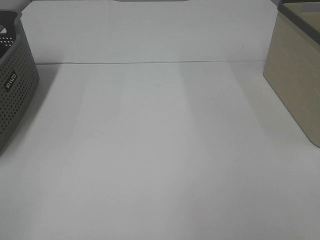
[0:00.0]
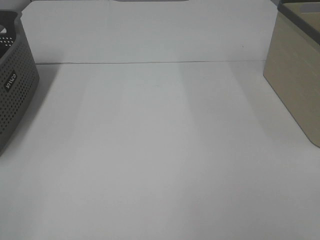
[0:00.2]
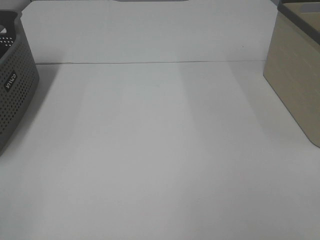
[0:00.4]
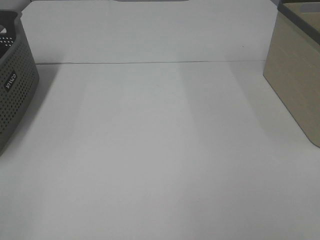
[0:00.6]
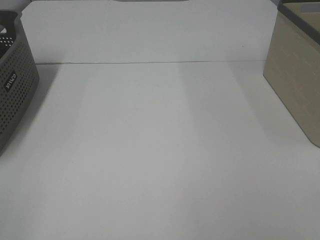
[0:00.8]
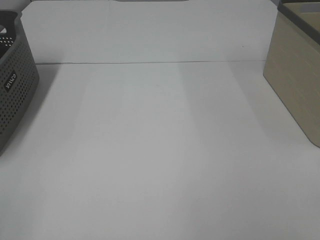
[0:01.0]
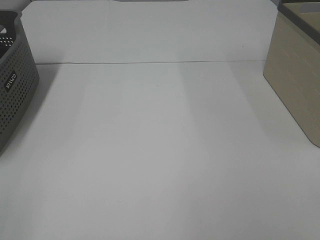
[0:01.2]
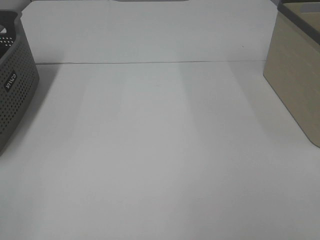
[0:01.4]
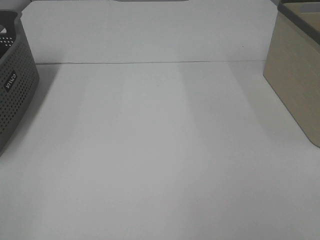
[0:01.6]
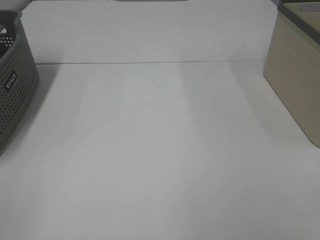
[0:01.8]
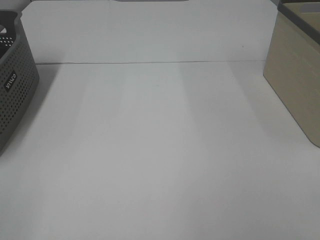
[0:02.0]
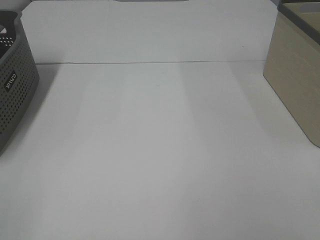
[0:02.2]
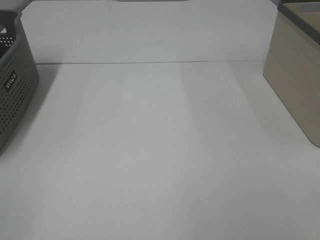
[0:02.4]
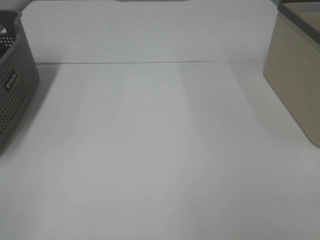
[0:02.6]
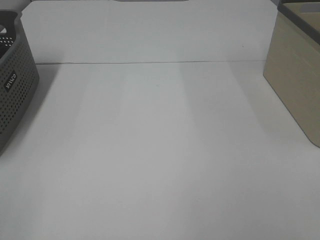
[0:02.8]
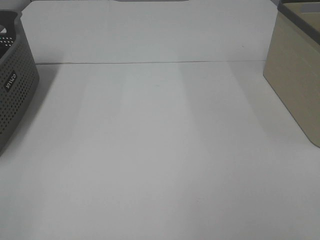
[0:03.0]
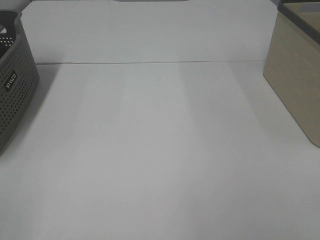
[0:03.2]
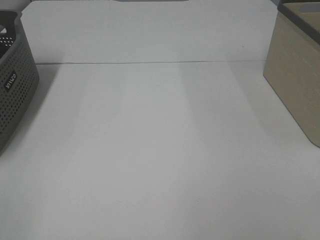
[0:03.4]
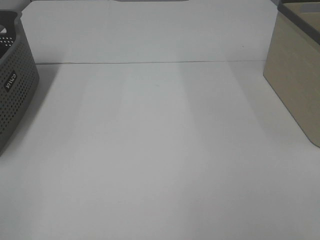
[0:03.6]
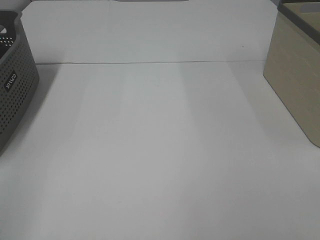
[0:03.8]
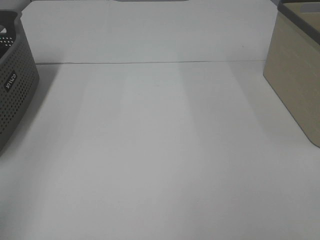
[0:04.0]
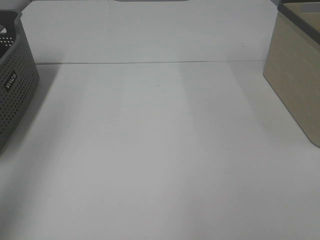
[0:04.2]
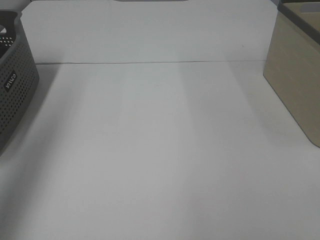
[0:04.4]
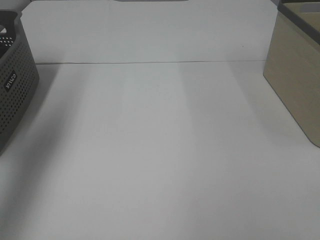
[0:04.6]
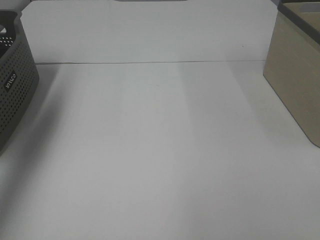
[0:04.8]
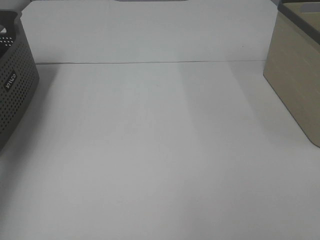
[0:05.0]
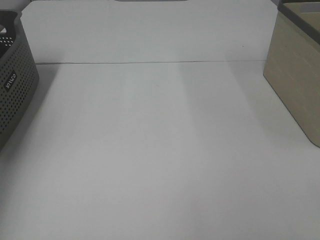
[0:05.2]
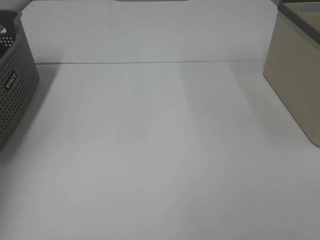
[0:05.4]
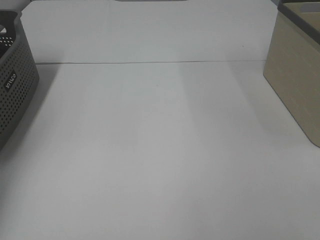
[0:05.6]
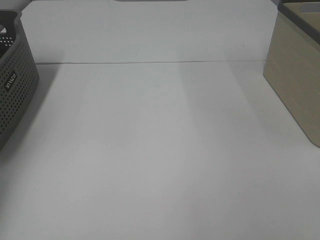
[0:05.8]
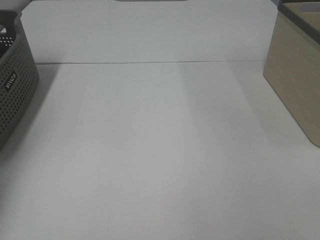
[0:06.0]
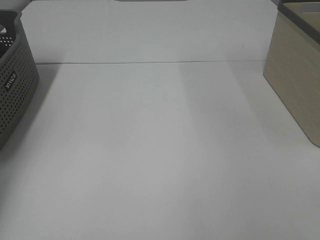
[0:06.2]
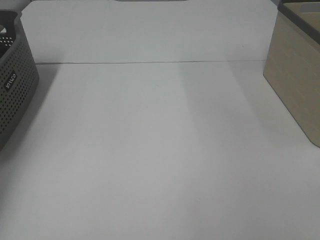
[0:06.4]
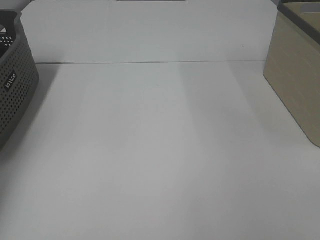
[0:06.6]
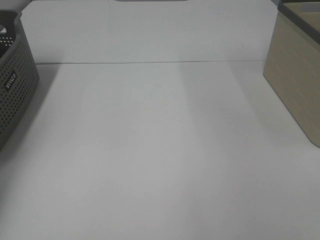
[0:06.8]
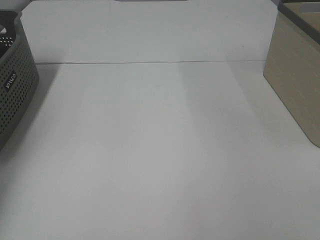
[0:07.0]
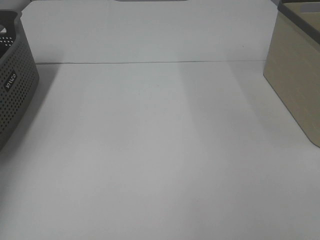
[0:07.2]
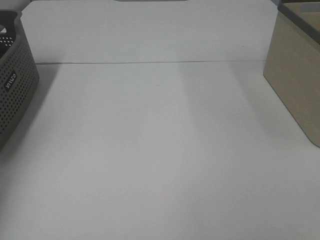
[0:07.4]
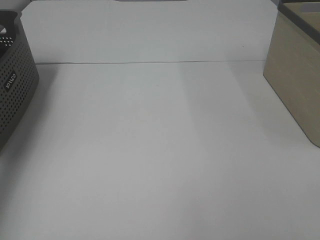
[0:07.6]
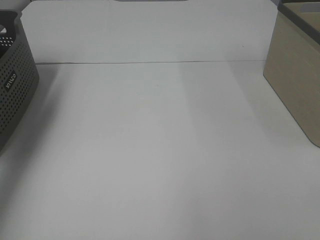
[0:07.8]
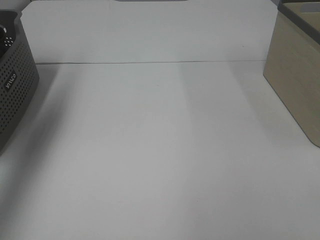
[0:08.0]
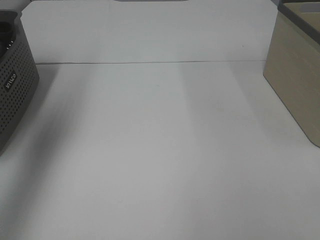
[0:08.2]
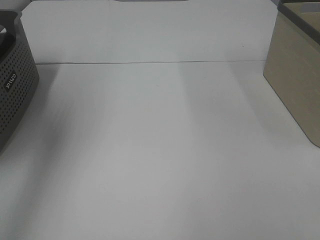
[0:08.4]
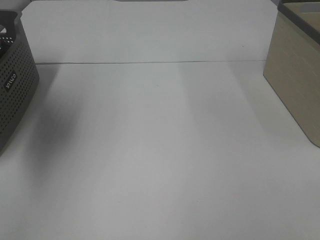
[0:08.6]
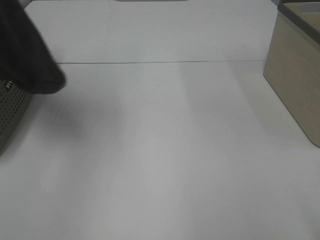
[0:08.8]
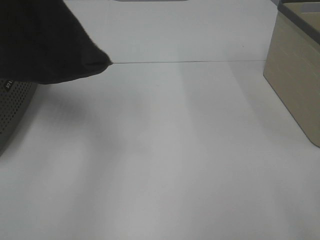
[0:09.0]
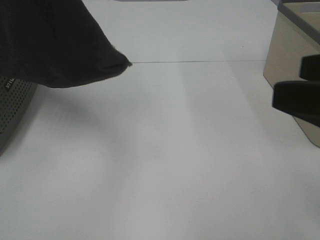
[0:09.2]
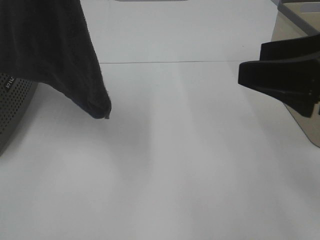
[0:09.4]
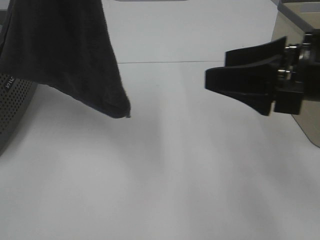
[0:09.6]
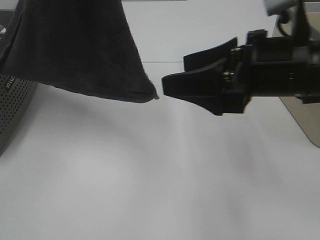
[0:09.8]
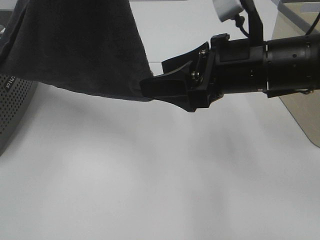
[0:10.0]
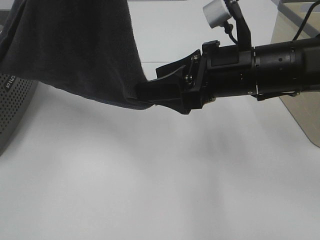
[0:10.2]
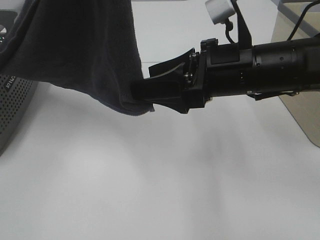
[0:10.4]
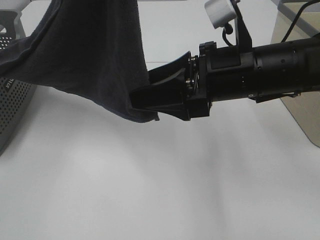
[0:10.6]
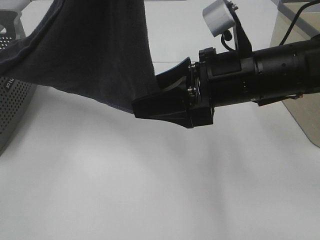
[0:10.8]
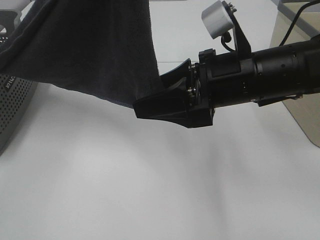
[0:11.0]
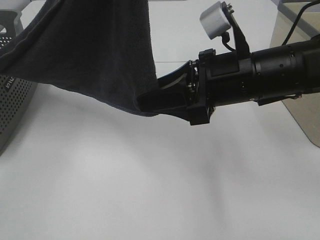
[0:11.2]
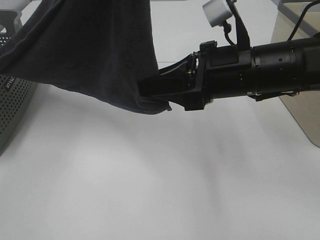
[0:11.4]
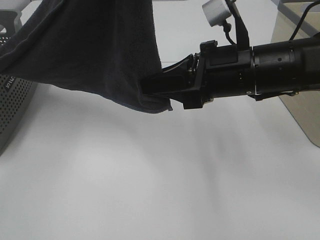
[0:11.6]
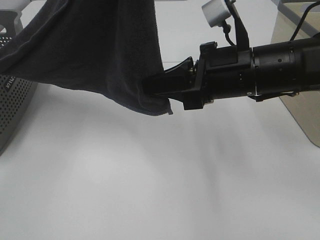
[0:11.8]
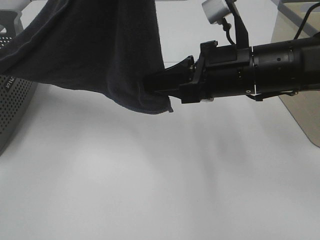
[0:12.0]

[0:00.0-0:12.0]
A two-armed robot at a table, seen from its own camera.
Task of the whole recording: Remove the towel and place it.
Step, 0:07.8 to 0:11.6: Right hand: grab a corner of the grey towel and straighten it.
0:00.0 to 0:03.0: Neither gripper changes place.
0:03.0 to 0:04.4: The left gripper goes roughly 25 cm forward and upward.
0:04.4 to 0:06.0: The left gripper is displaced forward, downward and to the left by some 30 cm.
0:06.0 to 0:07.6: The left gripper is displaced upward by some 10 cm, and closes.
0:07.6 to 0:09.0: The left gripper is displaced to the right, upward and backward by about 30 cm. The right gripper moves forward, roughly 5 cm.
0:09.0 to 0:10.4: The right gripper is displaced forward, to the left and downward by about 25 cm. The left gripper is displaced to the right by some 10 cm.
0:10.4 to 0:12.0: The right gripper closes up.

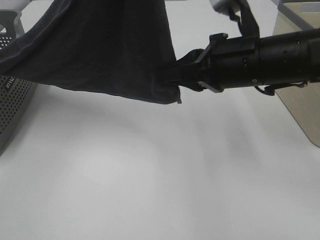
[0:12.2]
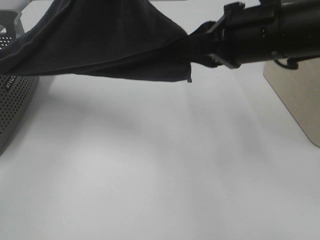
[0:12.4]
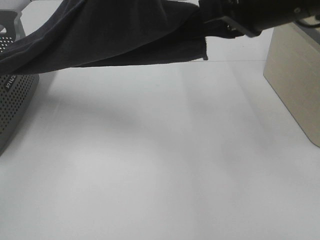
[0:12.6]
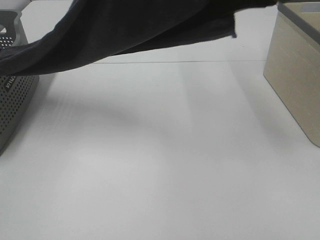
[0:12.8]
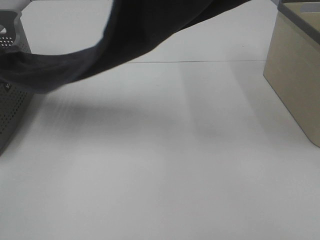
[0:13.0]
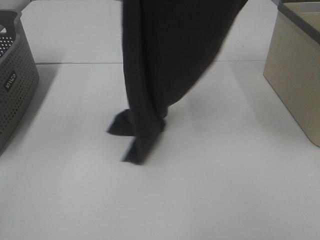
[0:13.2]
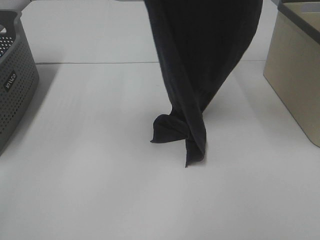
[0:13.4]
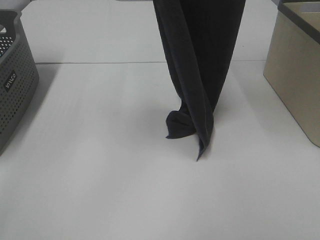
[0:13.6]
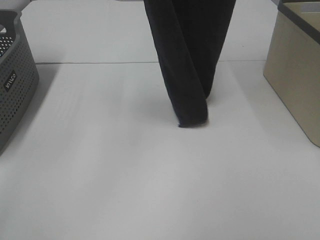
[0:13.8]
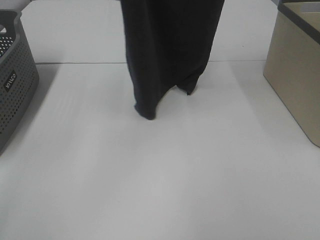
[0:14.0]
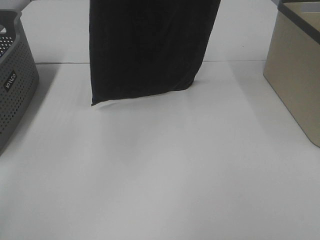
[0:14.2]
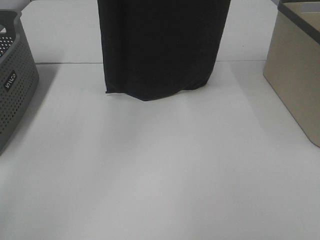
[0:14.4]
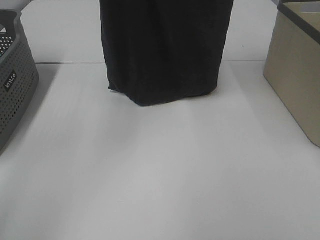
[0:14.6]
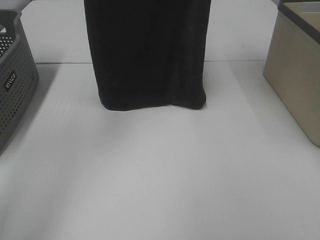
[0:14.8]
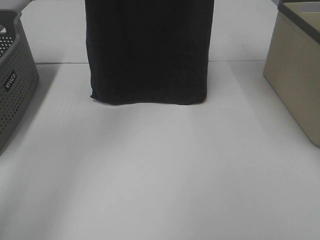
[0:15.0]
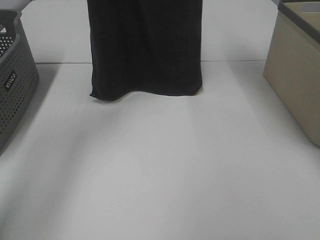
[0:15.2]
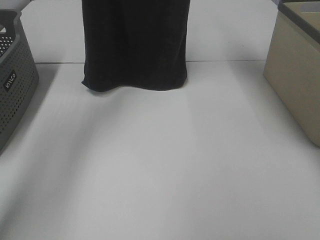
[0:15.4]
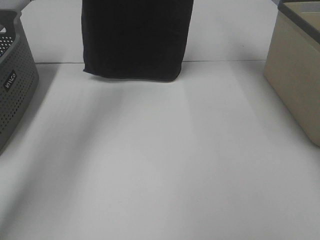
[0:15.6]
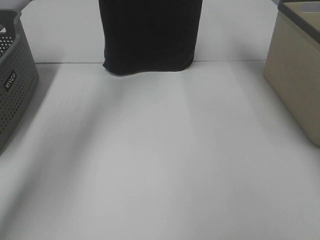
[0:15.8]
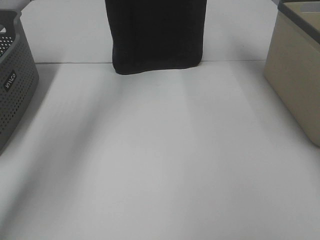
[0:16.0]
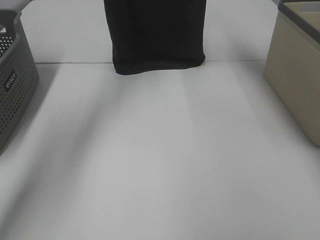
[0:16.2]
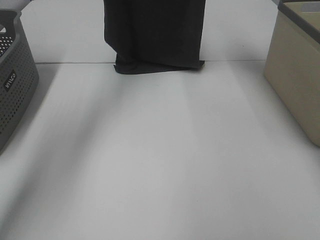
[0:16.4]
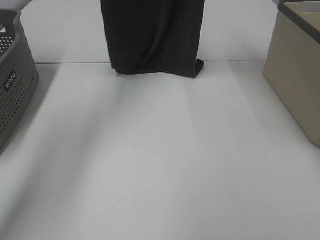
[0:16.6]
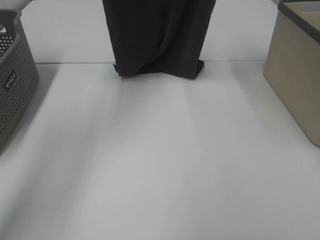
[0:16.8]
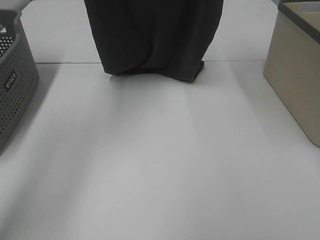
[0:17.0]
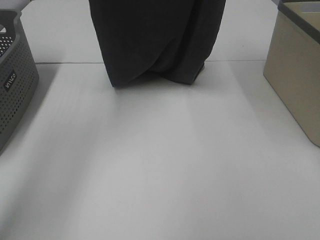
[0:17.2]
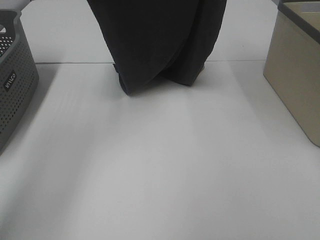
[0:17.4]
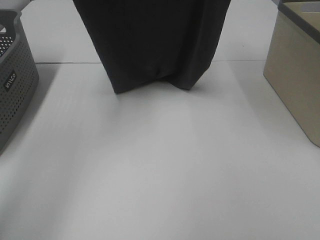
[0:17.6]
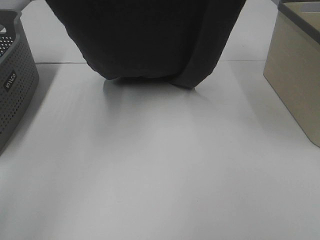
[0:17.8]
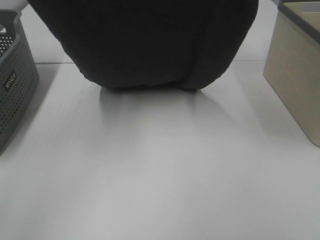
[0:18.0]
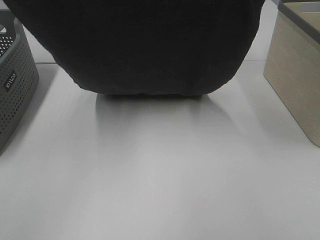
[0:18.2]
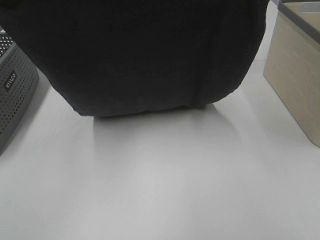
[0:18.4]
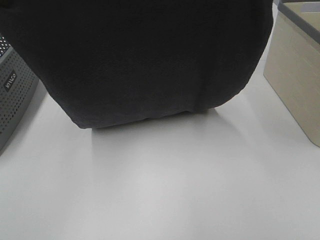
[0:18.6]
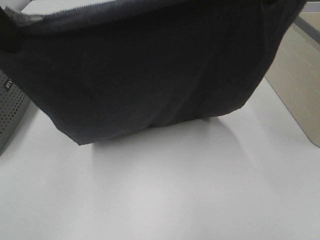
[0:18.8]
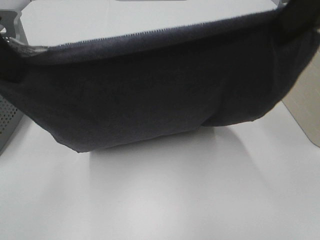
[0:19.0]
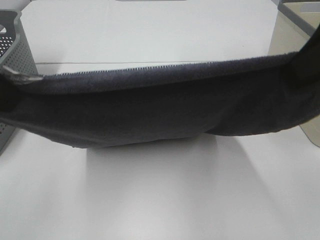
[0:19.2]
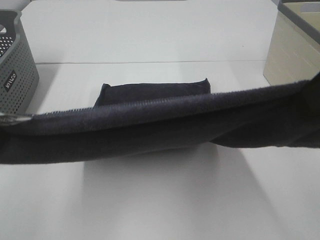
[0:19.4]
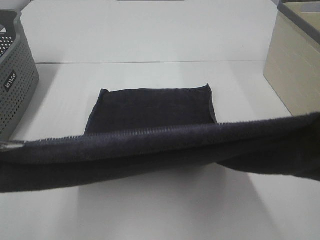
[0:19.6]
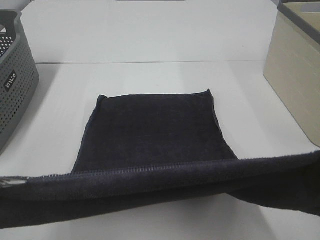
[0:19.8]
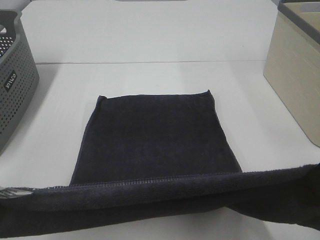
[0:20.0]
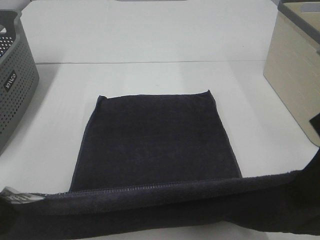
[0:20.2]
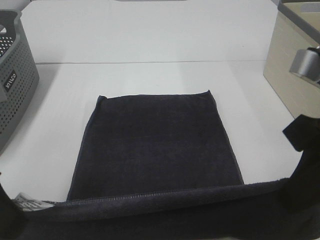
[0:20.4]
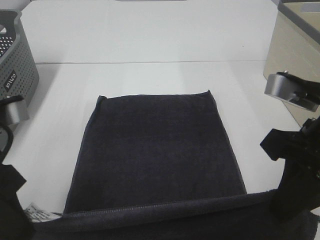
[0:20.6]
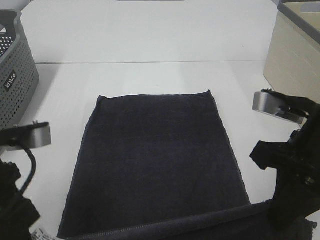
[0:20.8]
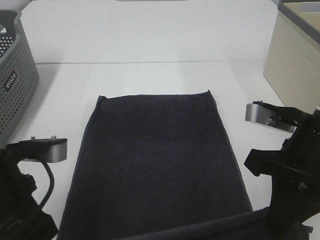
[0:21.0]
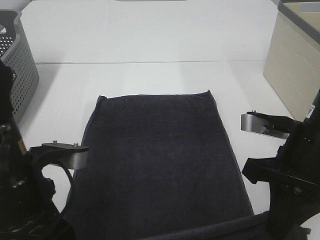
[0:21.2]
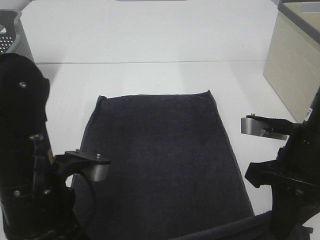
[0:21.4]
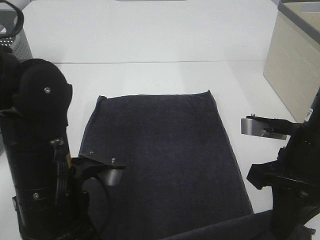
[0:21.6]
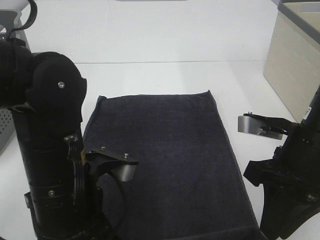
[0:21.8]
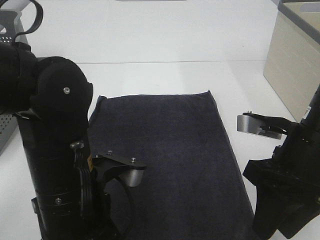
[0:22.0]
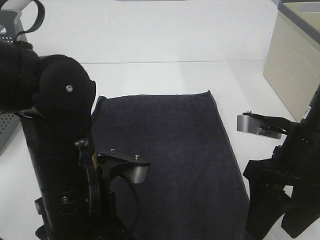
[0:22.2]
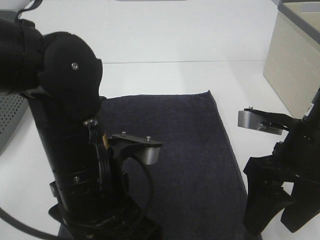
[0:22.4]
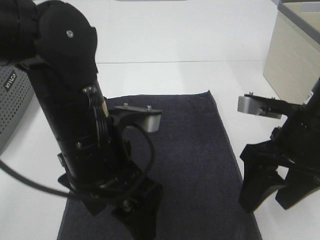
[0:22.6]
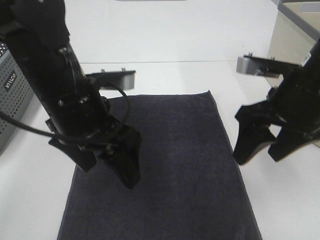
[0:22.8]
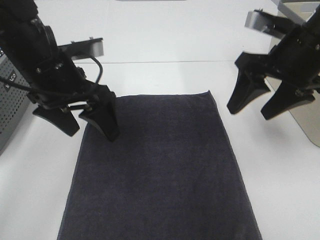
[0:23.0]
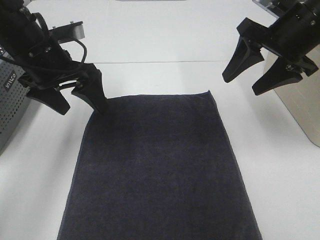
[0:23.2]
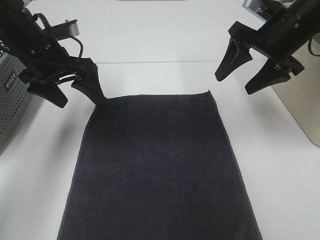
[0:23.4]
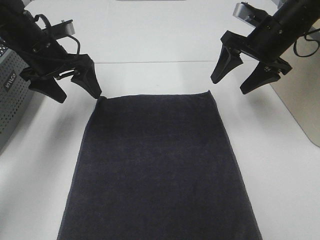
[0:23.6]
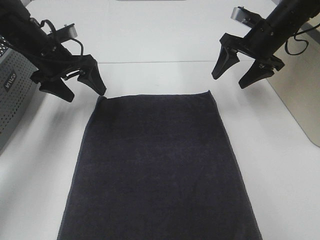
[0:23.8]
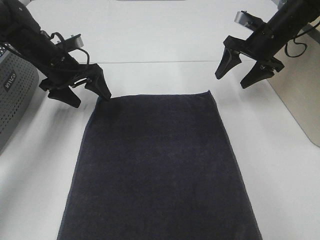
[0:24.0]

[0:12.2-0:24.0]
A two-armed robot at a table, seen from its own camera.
Task of the whole recording: Remove the towel and place it.
Step, 0:12.2 to 0:17.4: Right hand: spread the grey towel flat on the table.
Step, 0:12.2 to 0:17.8: Left hand: spread the grey towel flat on the table.
0:12.2 to 0:13.6: The right gripper heads upward, covering roughly 30 cm. The left gripper is displaced forward by approximately 10 cm.
0:13.6 to 0:15.2: The left gripper heads forward, covering approximately 15 cm. Meanwhile the right gripper travels forward and to the left by roughly 10 cm.
0:15.2 to 0:16.6: The left gripper changes place by approximately 5 cm.
0:16.6 to 0:18.2: Both grippers travel together backward, about 20 cm.
0:18.2 to 0:19.6: The grippers both shift backward and downward by about 20 cm.
0:19.6 to 0:21.0: The right gripper shifts roughly 15 cm downward and forward. The left gripper shifts some 15 cm downward.
0:21.0 to 0:22.6: The left gripper heads to the right, covering approximately 10 cm, and opens its fingers, while the right gripper opens its fingers.
0:22.6 to 0:24.0: The right gripper travels forward by approximately 25 cm, while the left gripper shifts roughly 30 cm forward and to the left.
